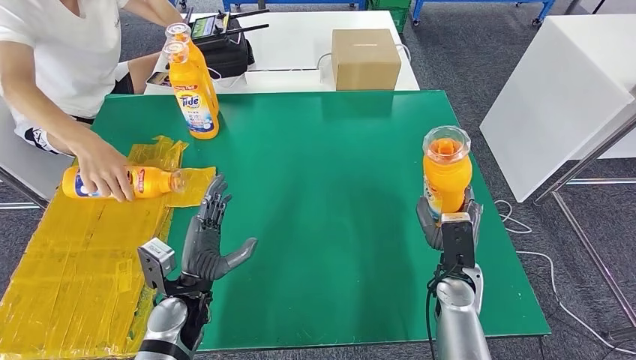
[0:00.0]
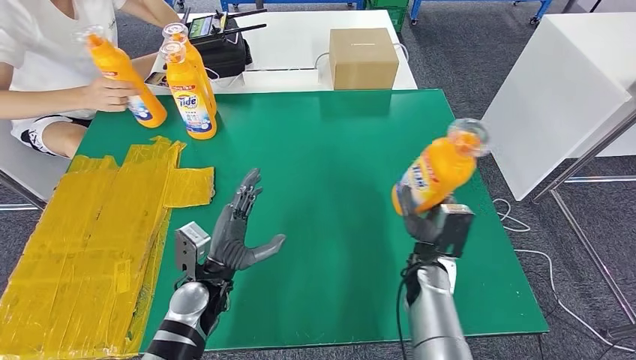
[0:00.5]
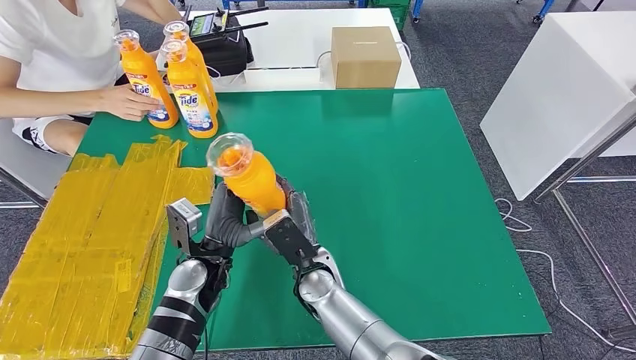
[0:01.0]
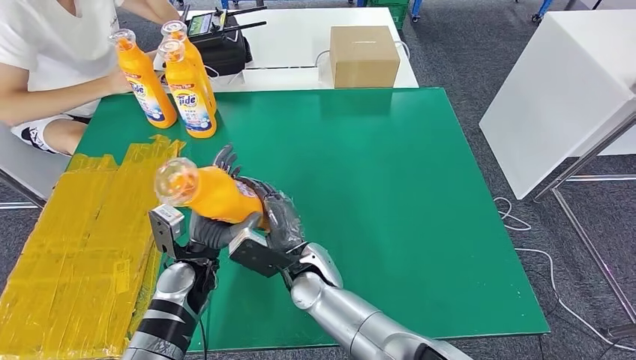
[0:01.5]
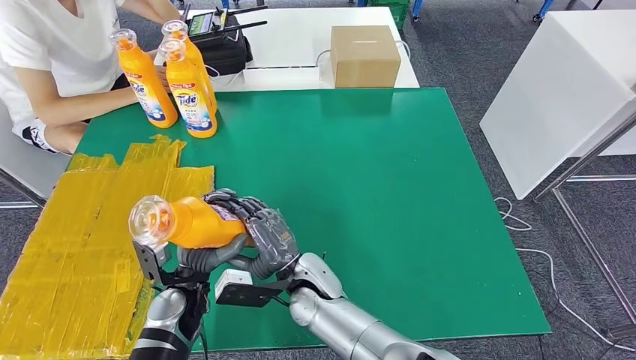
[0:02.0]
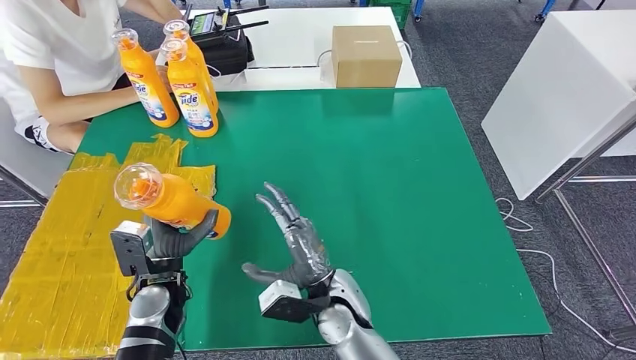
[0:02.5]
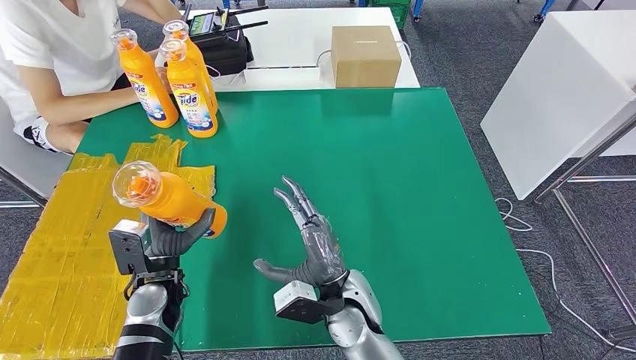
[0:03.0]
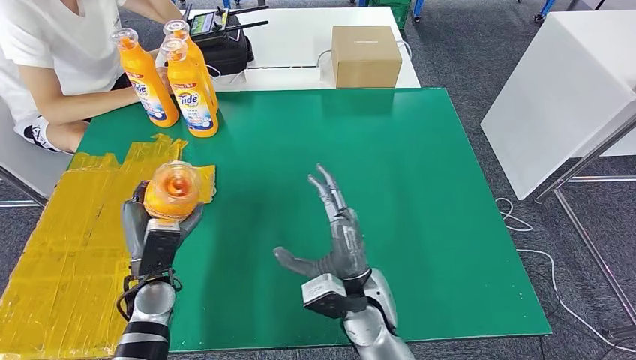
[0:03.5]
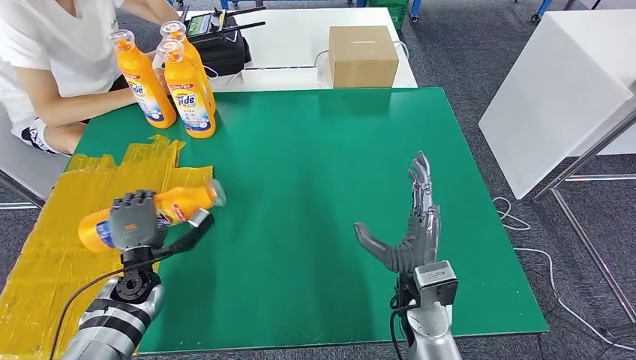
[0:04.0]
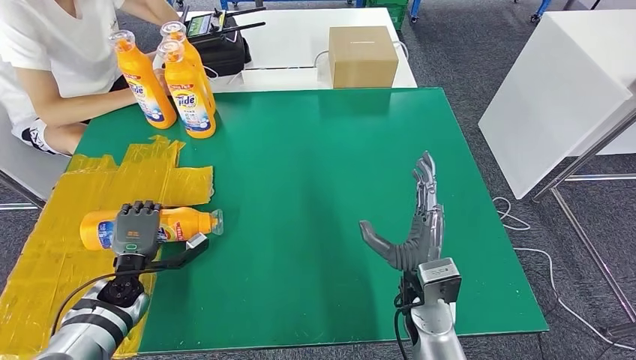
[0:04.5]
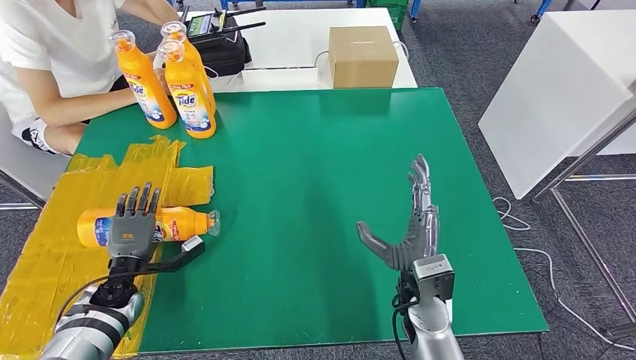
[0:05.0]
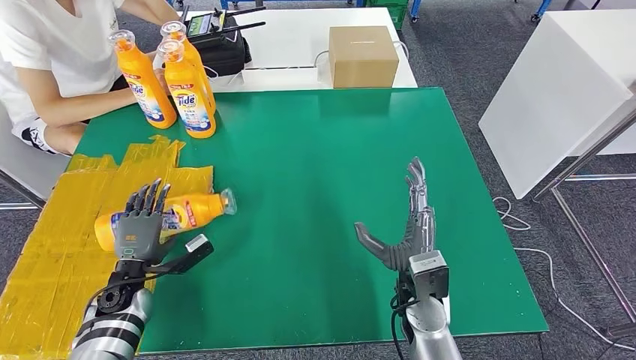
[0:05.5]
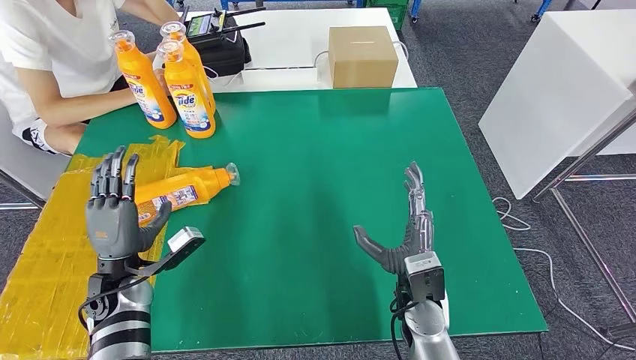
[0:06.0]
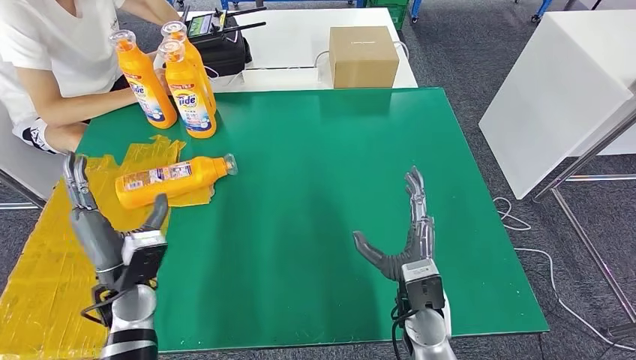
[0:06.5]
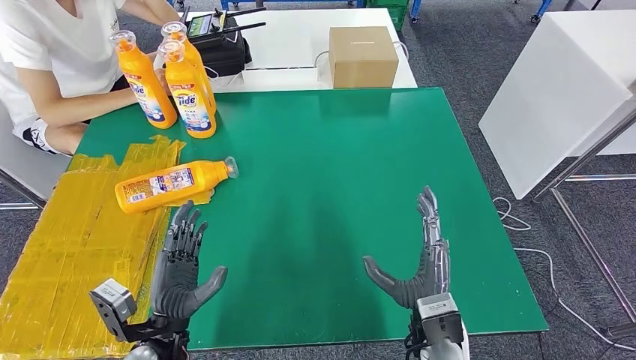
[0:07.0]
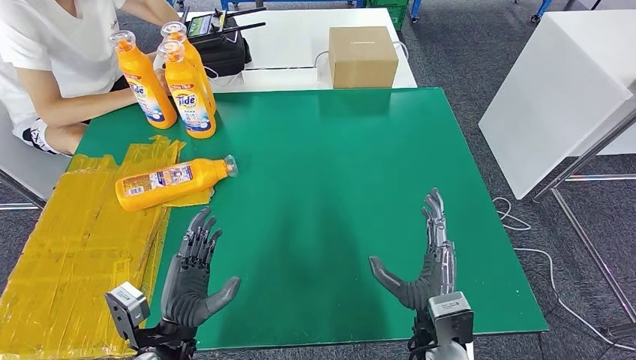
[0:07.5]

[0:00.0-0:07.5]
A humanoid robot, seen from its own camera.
Step, 0:00.0 to 0:02.0: Pick up the bottle from the table.
Step, 0:03.0 to 0:07.5: Flip the bottle to face forward.
0:02.0 to 0:04.0: The left hand is displaced to the left by some 10 cm. Meanwhile the right hand travels to the right by some 20 cm.
0:05.5 to 0:07.5: The left hand moves to the right, backward and upward, approximately 20 cm. The right hand travels backward by some 5 cm.
